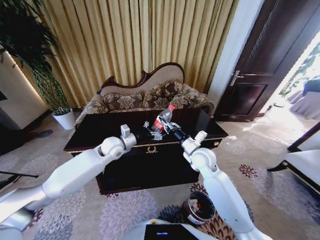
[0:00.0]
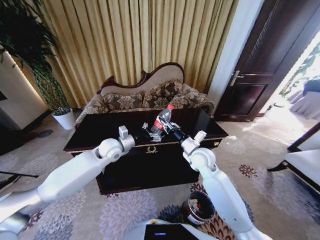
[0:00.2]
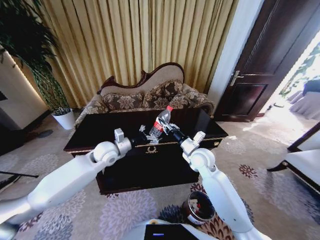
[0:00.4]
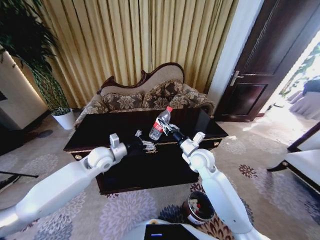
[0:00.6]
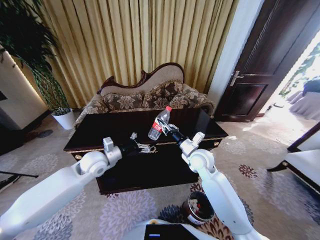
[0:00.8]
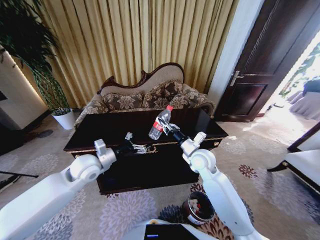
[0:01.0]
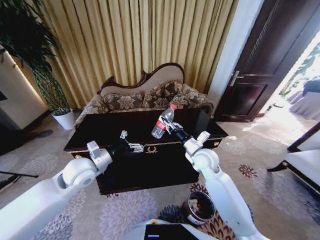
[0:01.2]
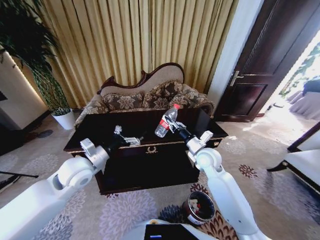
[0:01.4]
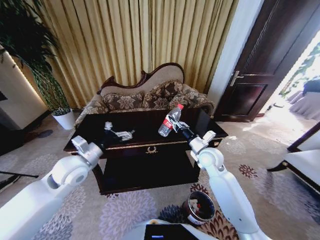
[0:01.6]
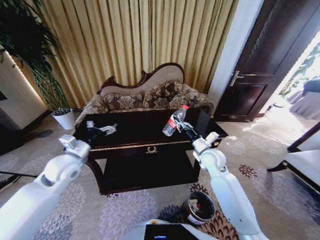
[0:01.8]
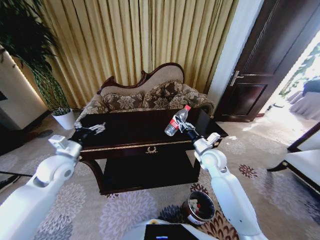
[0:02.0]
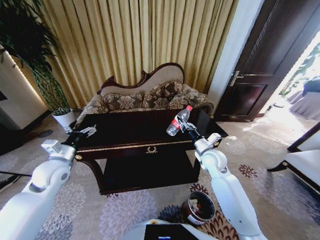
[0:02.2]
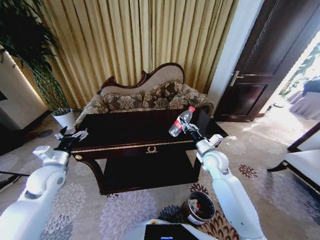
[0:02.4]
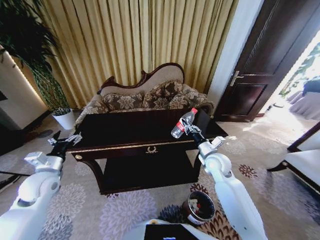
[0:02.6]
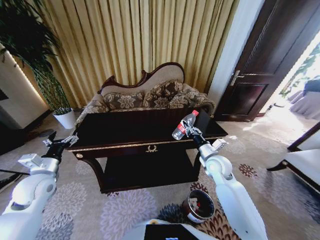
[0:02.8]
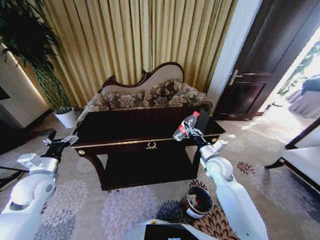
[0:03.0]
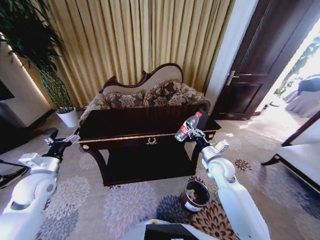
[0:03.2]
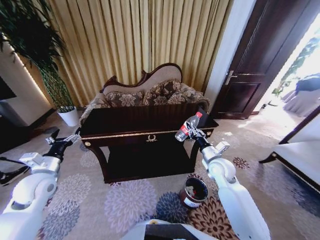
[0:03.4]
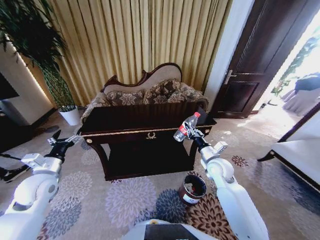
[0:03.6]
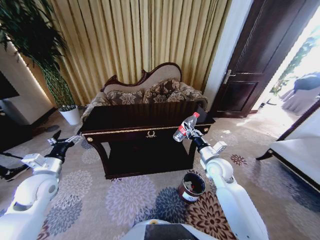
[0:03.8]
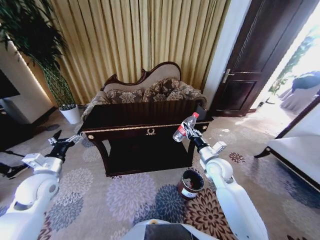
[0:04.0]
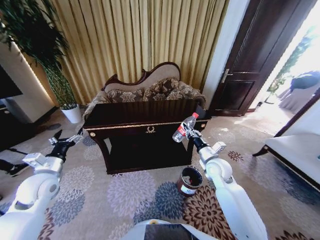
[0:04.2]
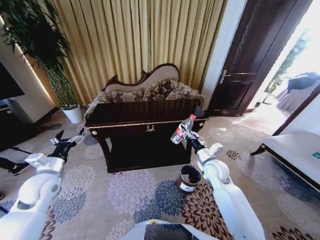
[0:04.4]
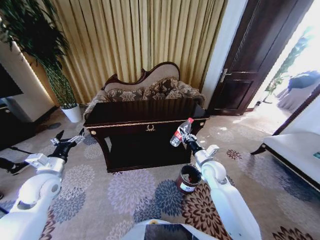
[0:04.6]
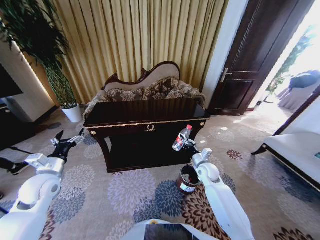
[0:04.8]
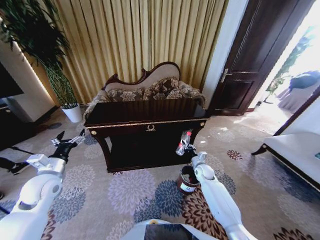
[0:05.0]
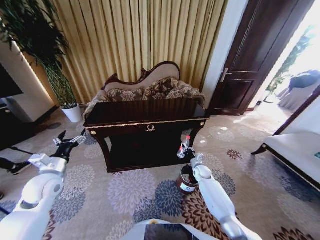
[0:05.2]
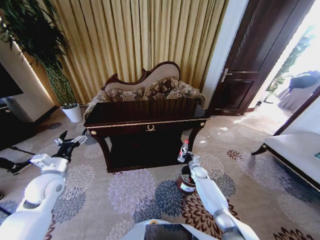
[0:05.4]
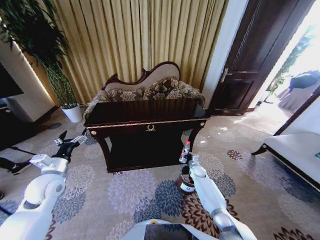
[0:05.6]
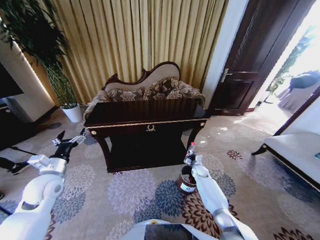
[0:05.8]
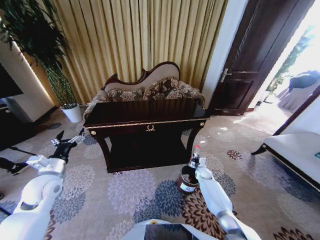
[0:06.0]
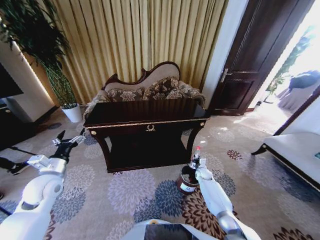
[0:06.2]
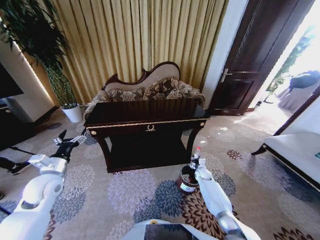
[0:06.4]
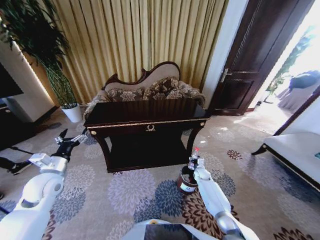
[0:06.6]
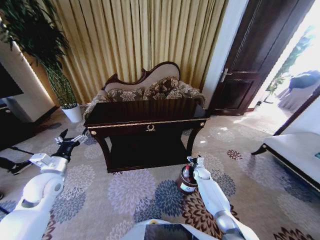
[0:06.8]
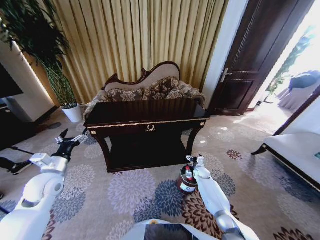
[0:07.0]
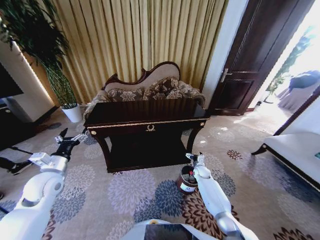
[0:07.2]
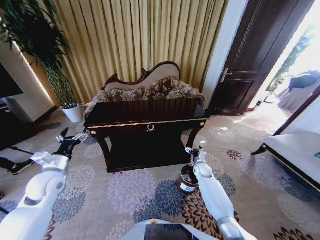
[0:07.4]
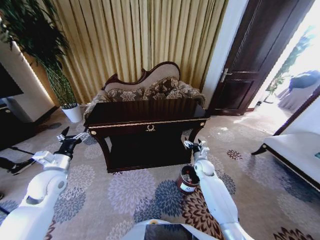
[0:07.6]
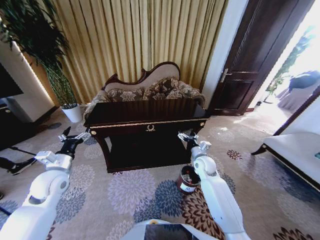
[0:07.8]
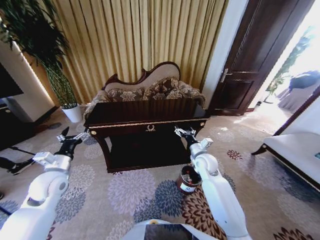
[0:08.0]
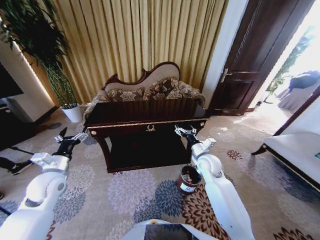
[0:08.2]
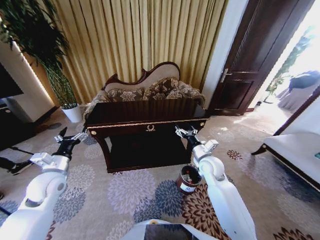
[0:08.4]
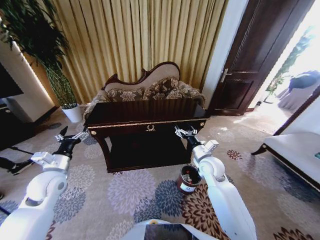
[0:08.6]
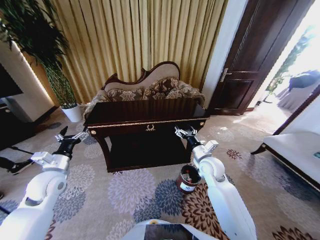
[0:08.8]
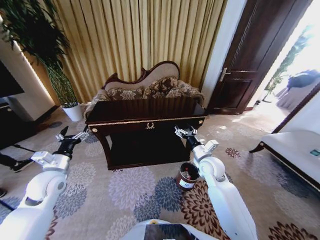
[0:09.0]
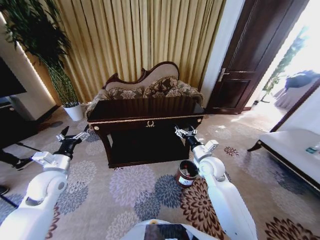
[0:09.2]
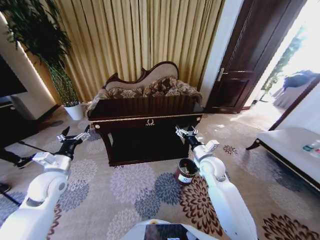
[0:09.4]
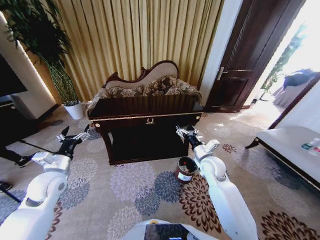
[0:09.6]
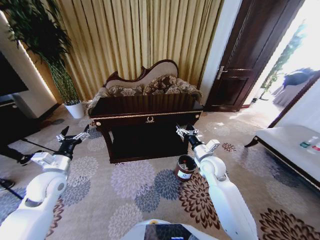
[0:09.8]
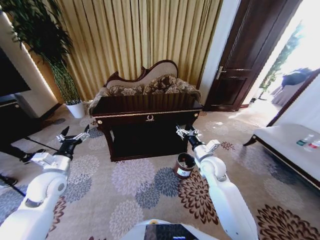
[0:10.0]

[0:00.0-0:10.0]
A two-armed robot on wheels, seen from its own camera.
Task of the whole recording: Move to the front of the table and place the trash on the table into the trash bin.
0:00.0 to 0:01.4: The left gripper goes approximately 15 cm backward and to the left.
0:01.4 to 0:02.8: The left gripper heads to the left, covering approximately 15 cm. Meanwhile the right gripper is displaced to the right by about 5 cm.
0:04.2 to 0:05.8: The right gripper moves downward, roughly 25 cm.
0:05.8 to 0:07.2: The right gripper opens.
0:07.2 to 0:08.6: The right gripper moves upward, some 25 cm.
